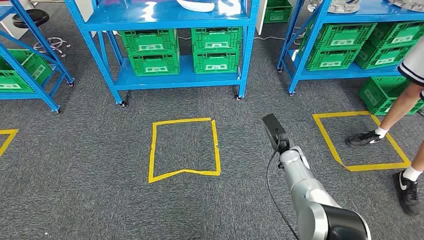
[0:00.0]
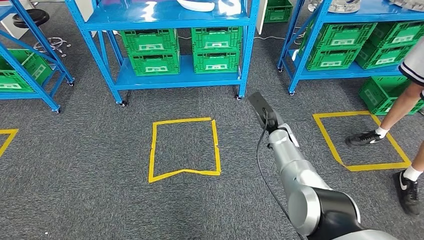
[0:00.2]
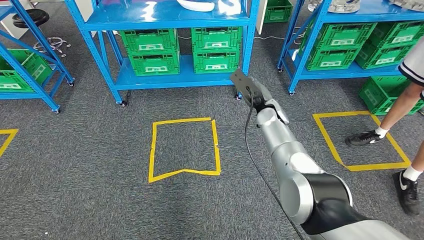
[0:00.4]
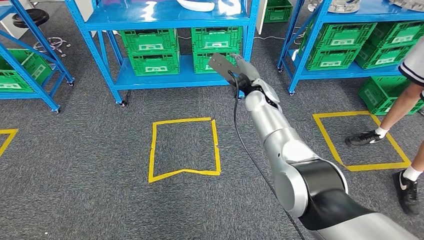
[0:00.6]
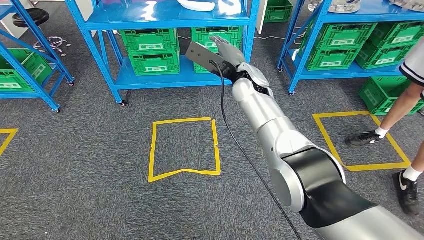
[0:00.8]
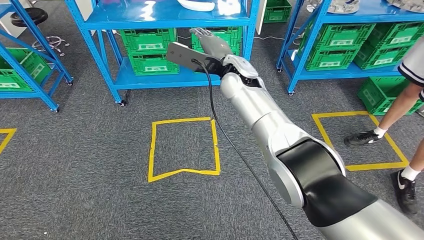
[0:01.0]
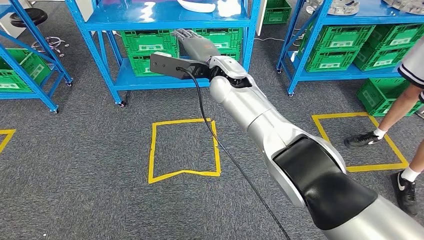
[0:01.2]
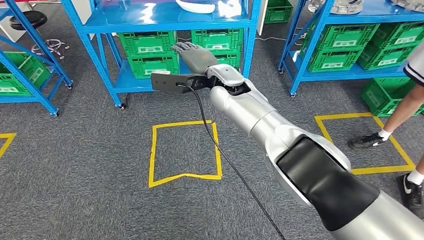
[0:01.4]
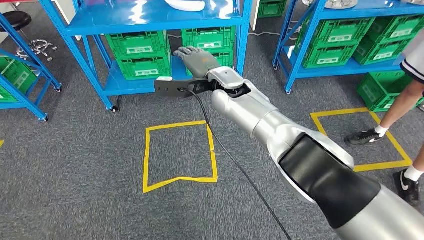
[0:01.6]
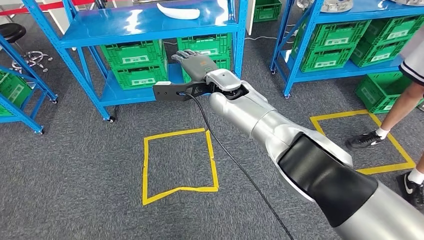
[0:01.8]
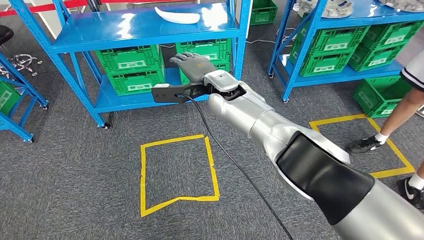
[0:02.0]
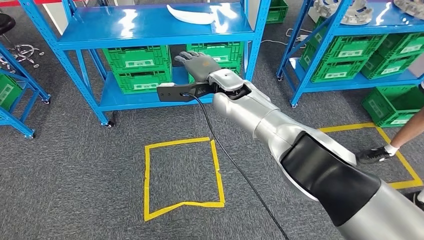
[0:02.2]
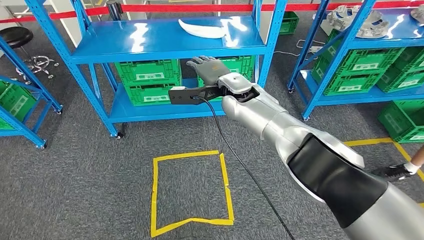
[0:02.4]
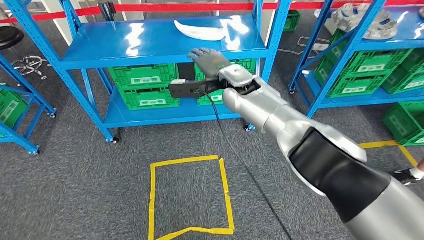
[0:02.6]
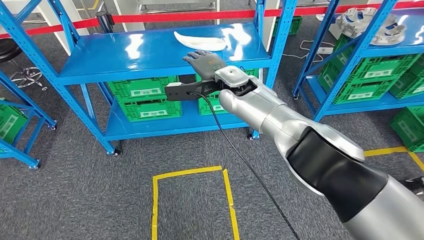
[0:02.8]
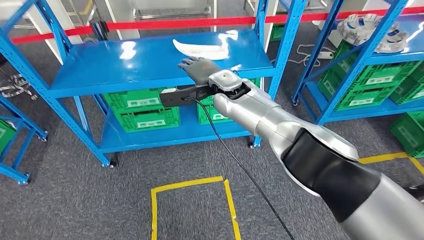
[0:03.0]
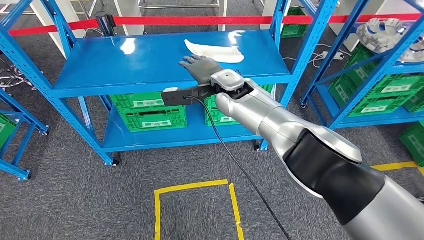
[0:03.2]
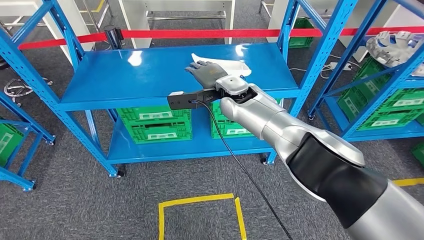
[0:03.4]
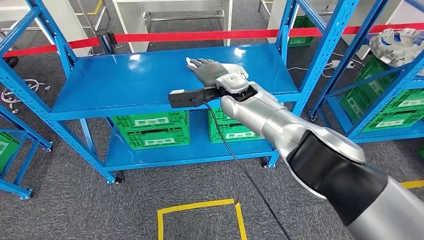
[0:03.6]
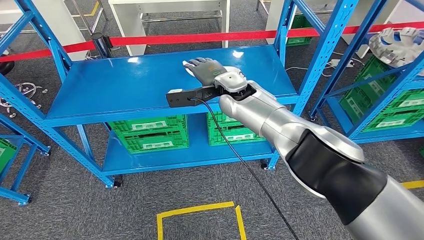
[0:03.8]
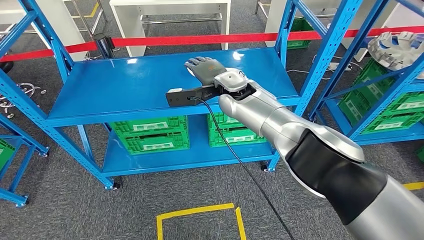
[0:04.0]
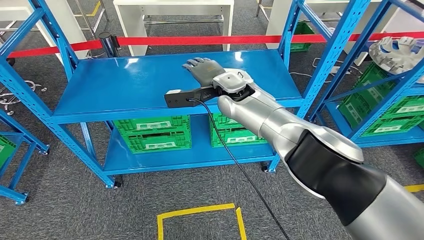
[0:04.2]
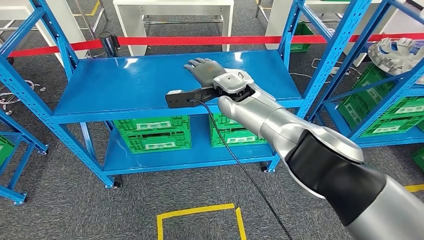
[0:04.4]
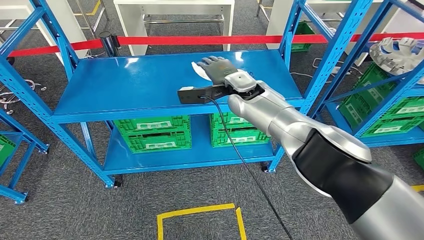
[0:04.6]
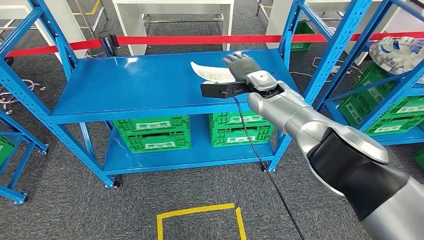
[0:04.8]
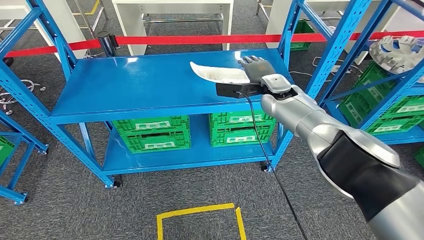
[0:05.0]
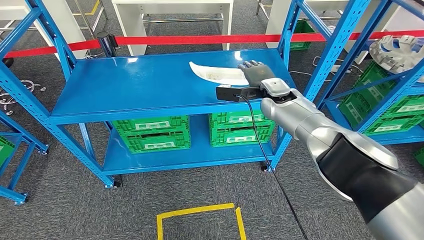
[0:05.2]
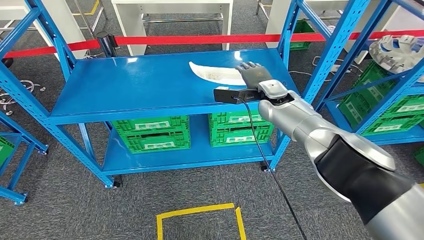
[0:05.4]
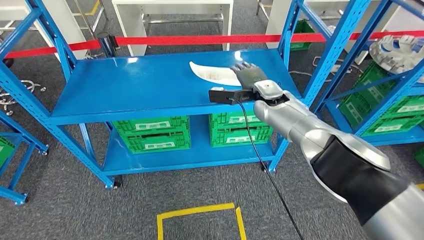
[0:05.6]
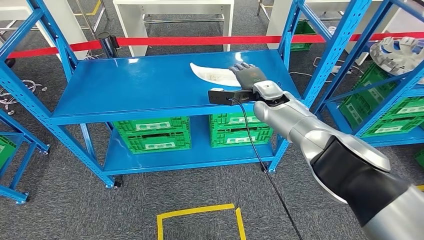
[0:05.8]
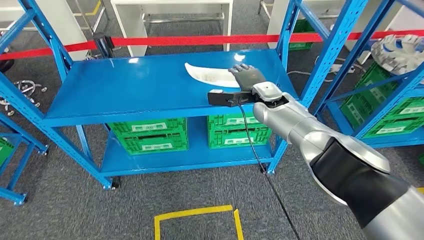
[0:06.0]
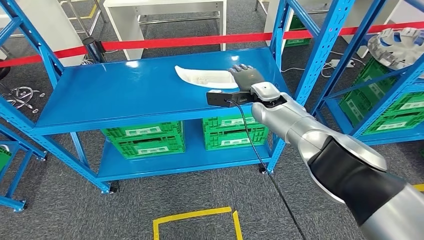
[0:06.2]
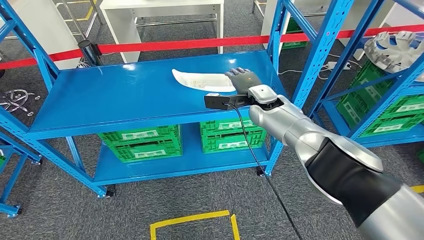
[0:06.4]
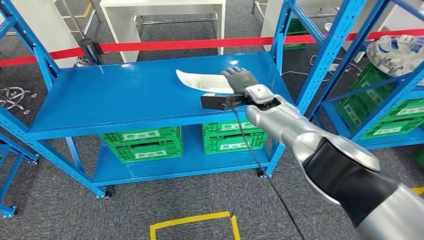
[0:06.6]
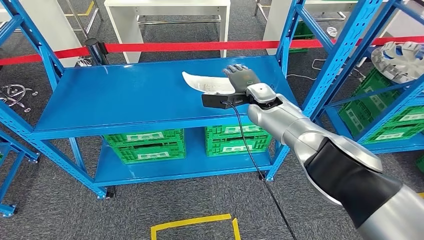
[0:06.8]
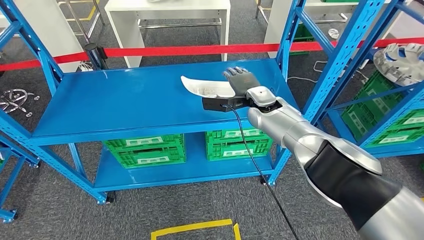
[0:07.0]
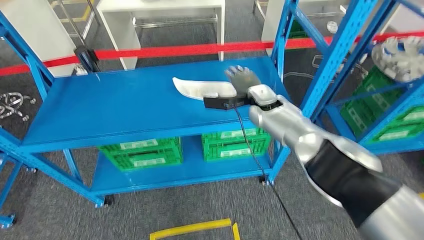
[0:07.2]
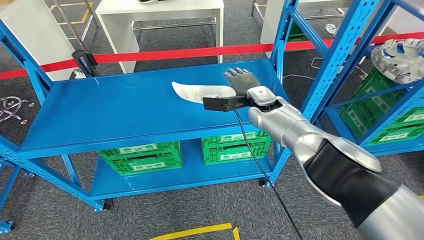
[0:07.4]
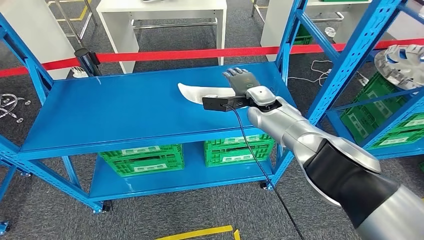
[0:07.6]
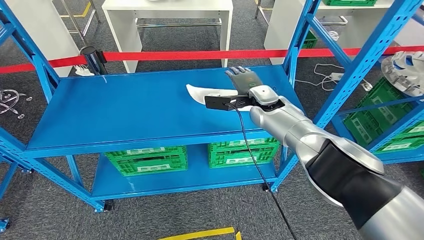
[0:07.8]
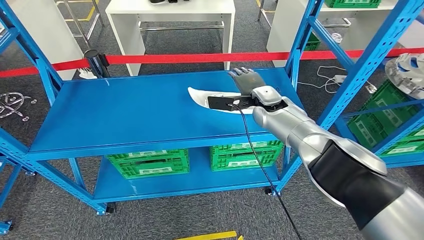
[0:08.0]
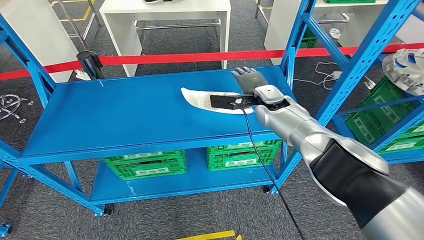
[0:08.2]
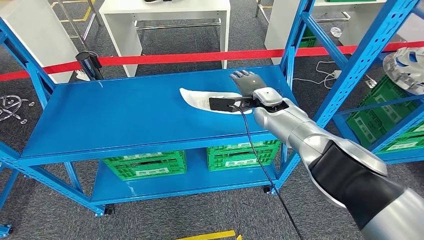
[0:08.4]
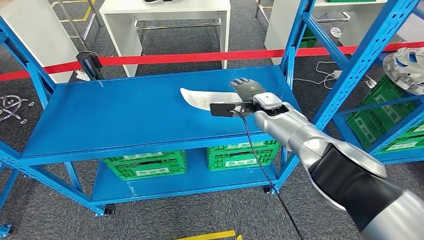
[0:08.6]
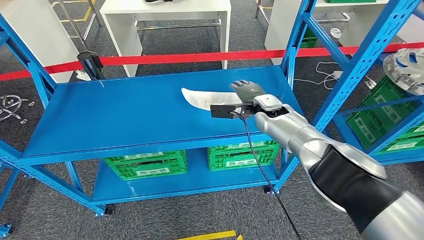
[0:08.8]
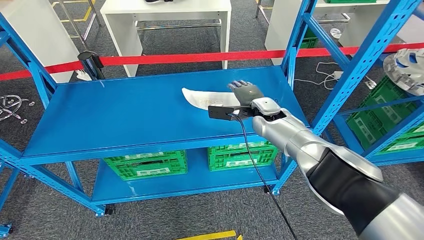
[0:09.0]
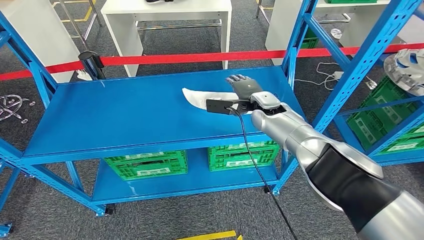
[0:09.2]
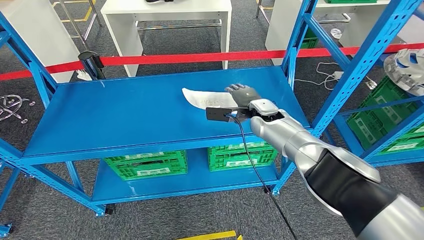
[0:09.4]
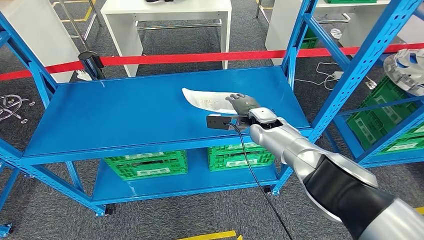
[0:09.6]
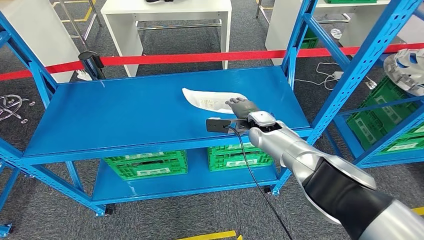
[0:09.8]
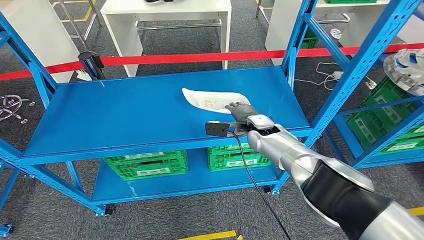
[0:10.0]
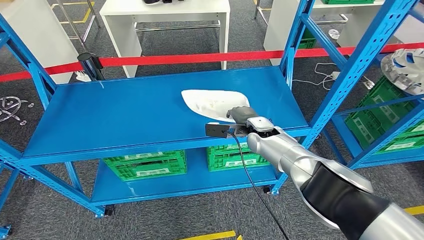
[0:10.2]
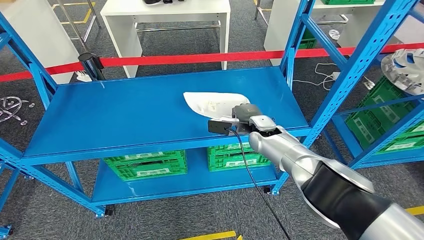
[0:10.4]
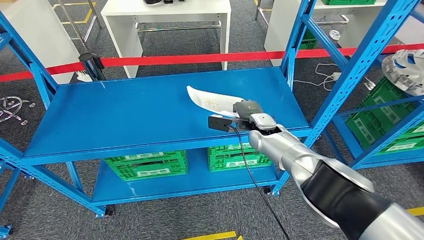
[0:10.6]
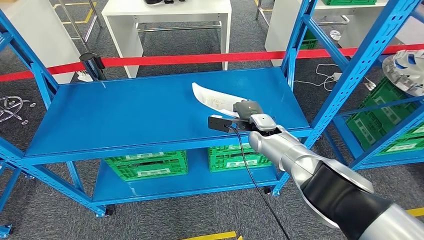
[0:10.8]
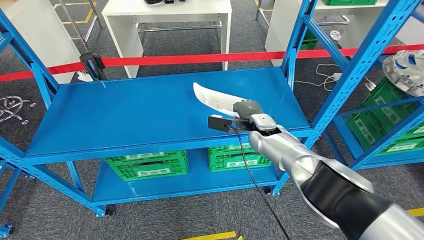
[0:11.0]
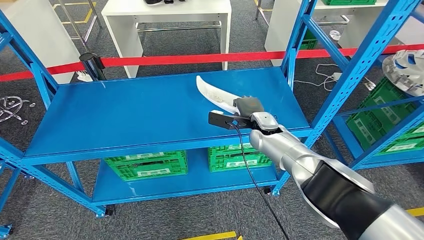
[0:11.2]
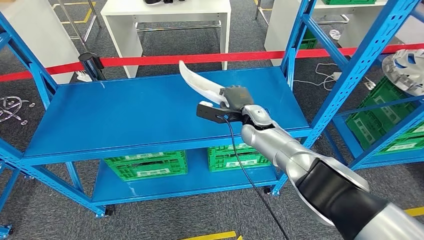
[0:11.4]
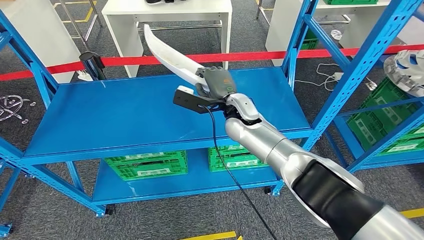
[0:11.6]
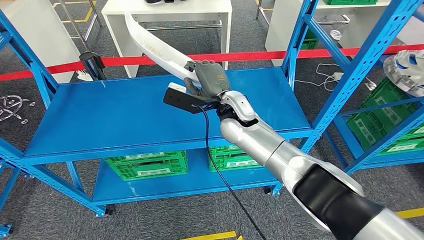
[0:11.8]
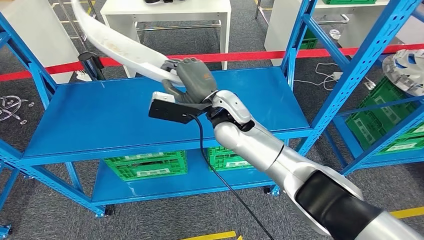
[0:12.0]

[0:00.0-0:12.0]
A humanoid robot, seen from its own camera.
0:09.0 to 0:10.4: The right hand ends up some 5 cm from where it was.
0:10.4 to 0:12.0: The right hand moves to the left and upward, some 20 cm.

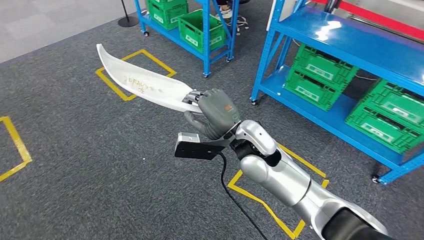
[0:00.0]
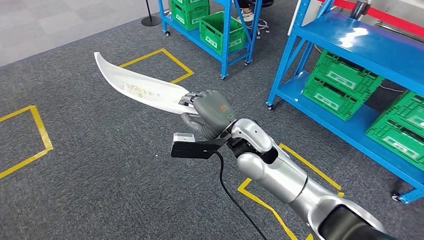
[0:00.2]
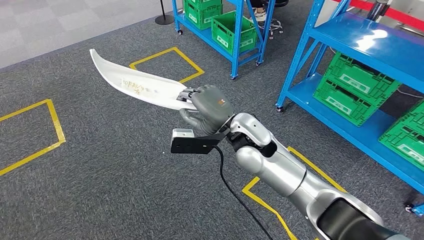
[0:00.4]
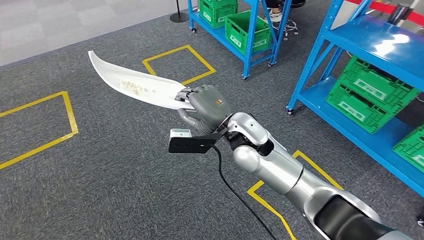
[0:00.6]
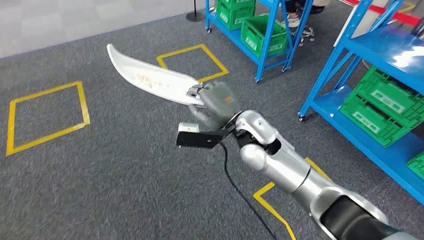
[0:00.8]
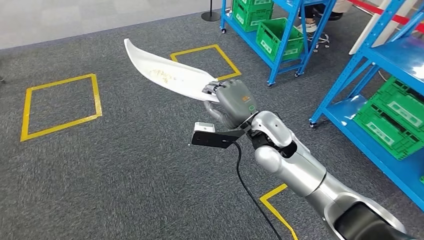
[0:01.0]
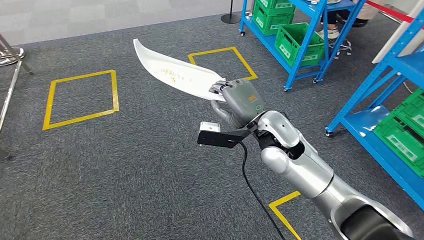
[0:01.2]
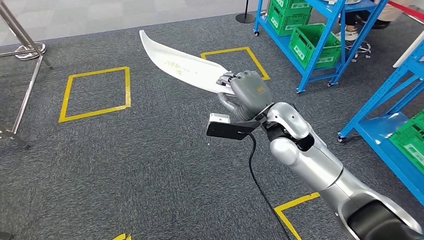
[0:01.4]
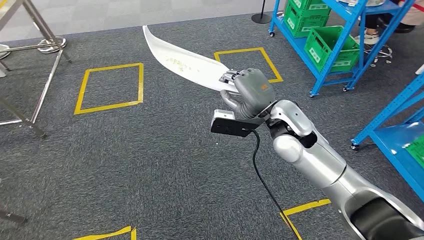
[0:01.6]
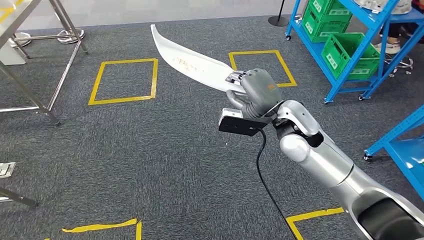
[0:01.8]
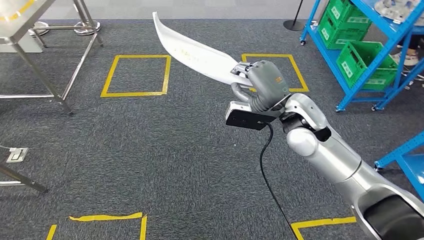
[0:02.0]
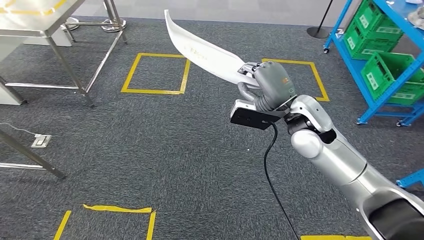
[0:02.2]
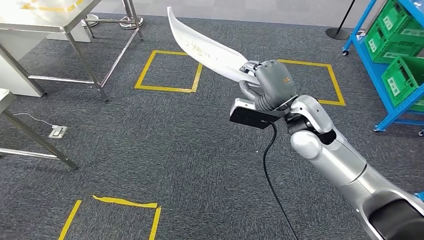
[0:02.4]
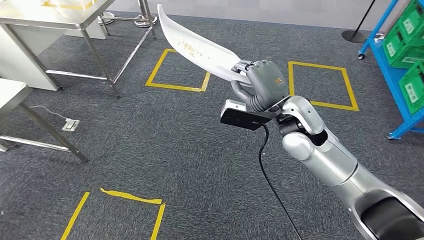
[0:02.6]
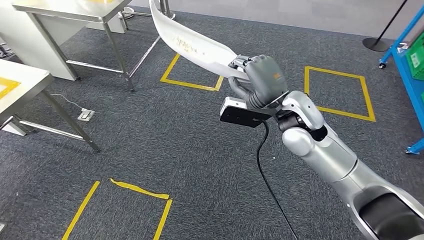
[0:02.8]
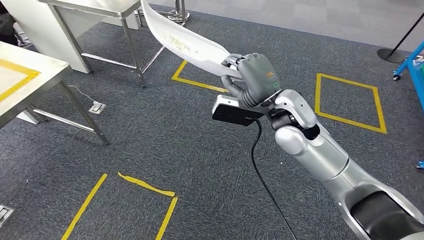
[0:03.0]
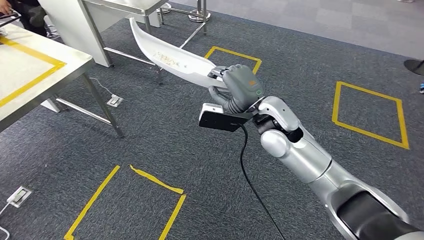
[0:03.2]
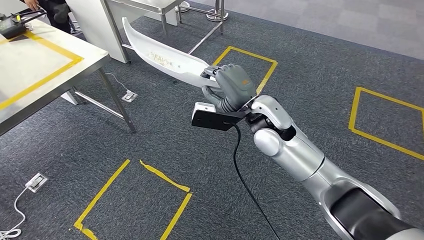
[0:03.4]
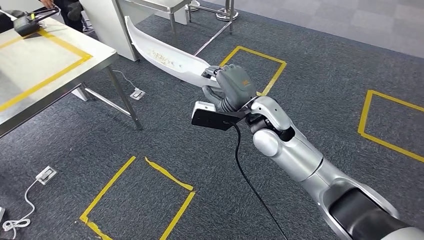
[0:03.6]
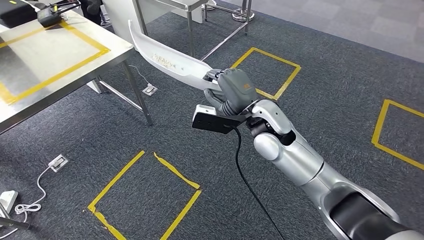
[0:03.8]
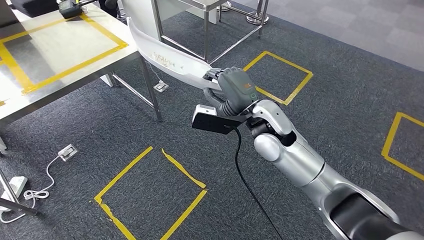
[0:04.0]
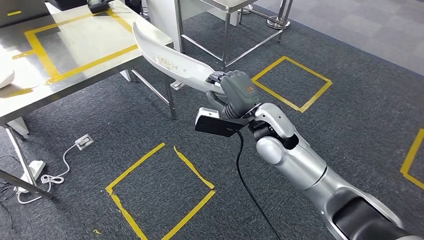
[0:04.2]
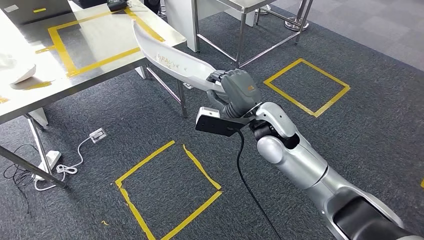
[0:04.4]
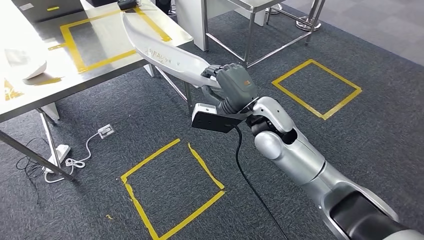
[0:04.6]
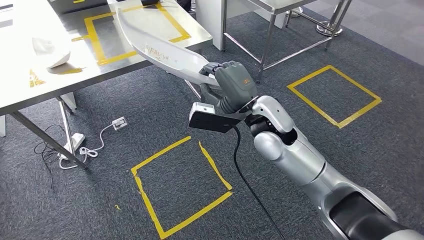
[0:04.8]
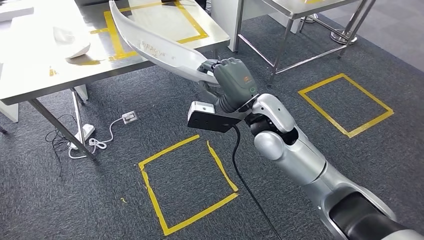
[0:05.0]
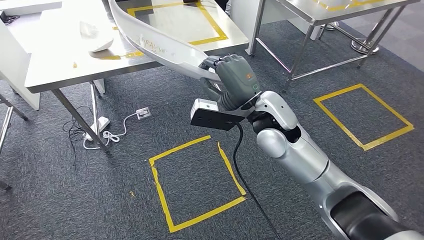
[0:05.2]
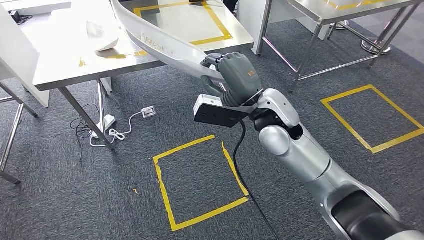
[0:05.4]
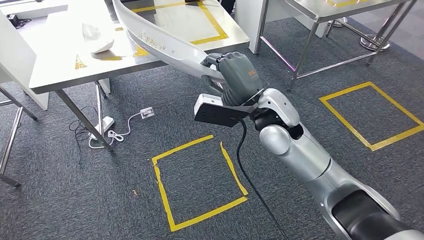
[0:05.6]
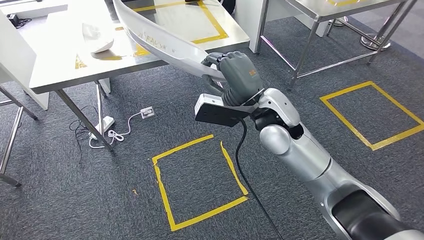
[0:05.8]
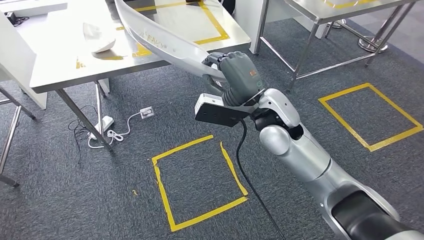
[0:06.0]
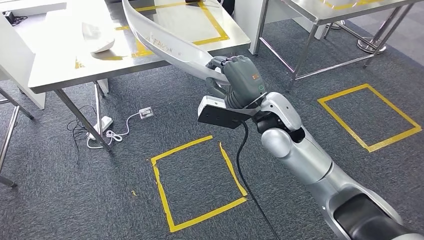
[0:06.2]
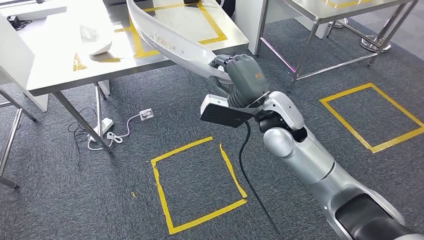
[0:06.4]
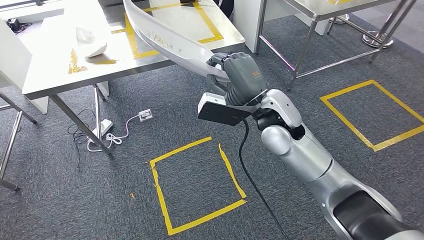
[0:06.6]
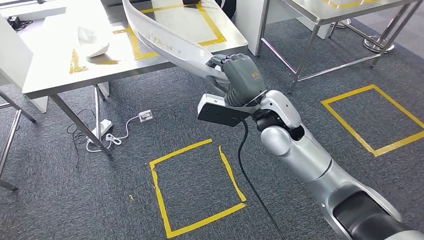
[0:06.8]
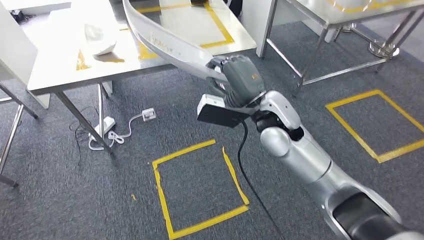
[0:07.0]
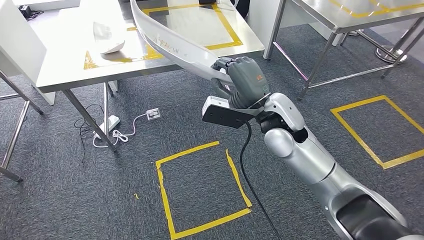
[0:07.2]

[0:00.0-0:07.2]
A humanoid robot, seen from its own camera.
Step, 0:00.0 to 0:04.8: Move the small component to the workbench.
